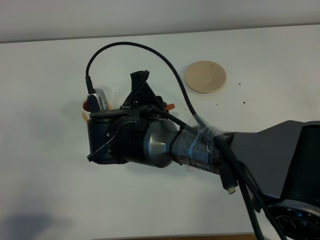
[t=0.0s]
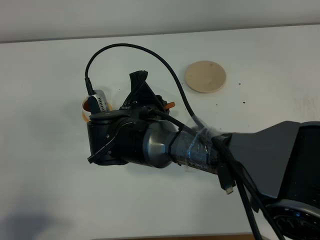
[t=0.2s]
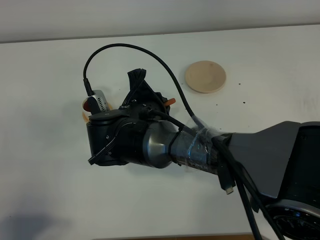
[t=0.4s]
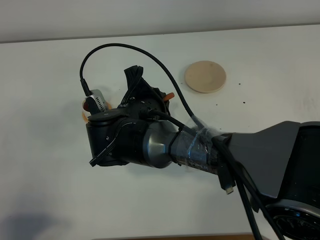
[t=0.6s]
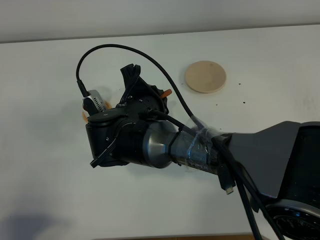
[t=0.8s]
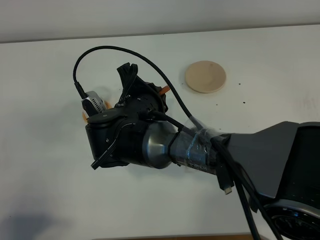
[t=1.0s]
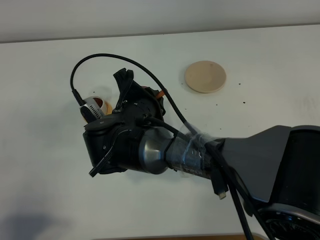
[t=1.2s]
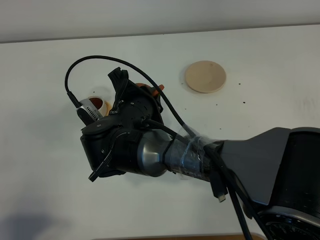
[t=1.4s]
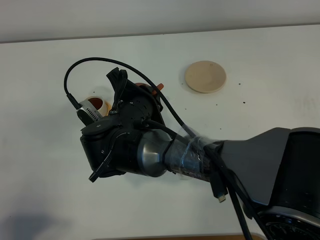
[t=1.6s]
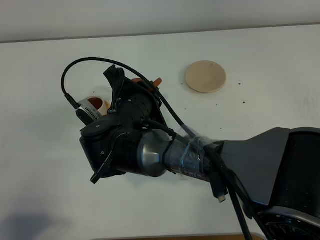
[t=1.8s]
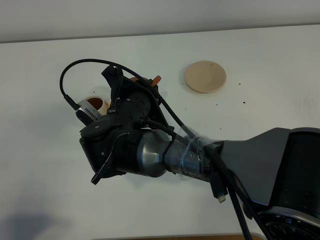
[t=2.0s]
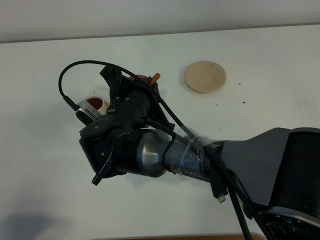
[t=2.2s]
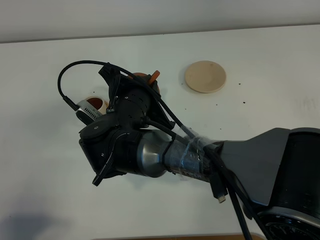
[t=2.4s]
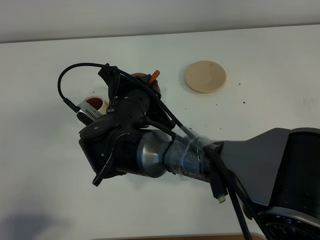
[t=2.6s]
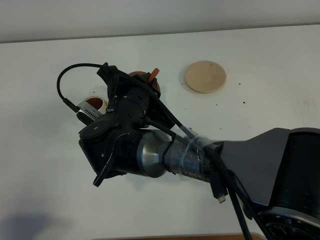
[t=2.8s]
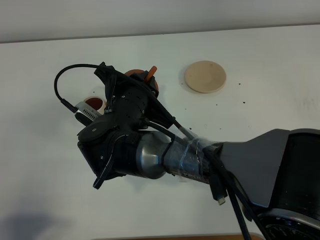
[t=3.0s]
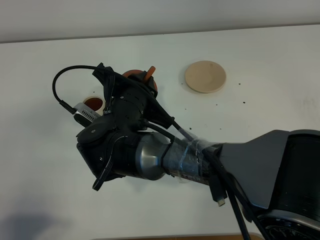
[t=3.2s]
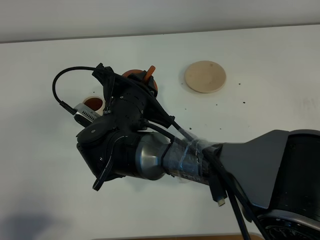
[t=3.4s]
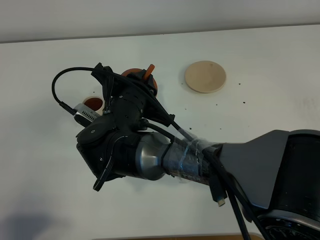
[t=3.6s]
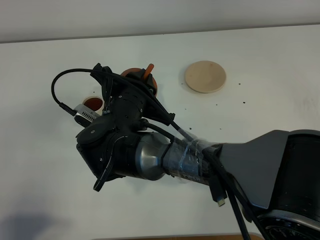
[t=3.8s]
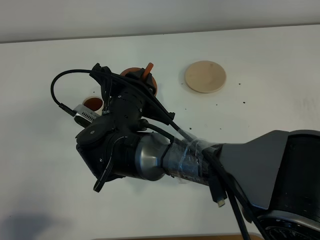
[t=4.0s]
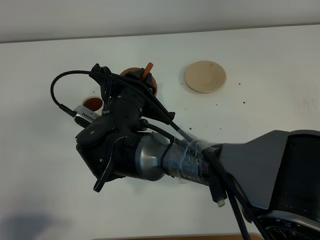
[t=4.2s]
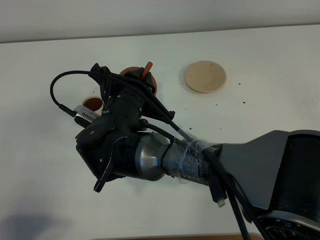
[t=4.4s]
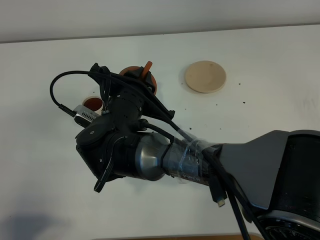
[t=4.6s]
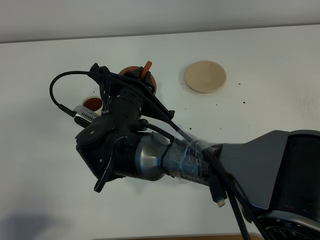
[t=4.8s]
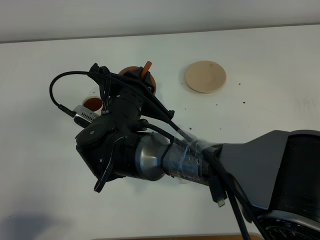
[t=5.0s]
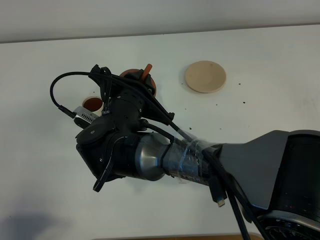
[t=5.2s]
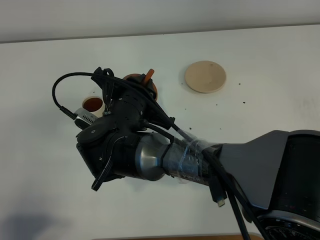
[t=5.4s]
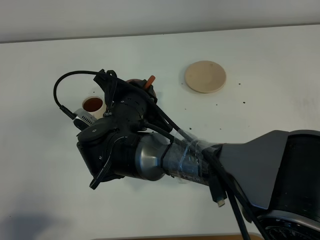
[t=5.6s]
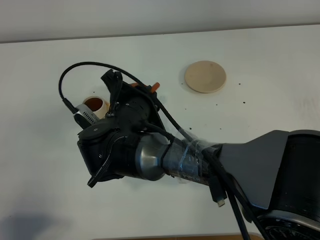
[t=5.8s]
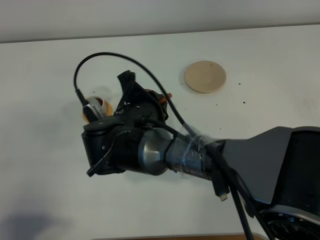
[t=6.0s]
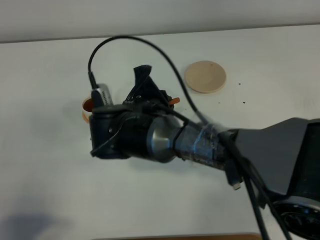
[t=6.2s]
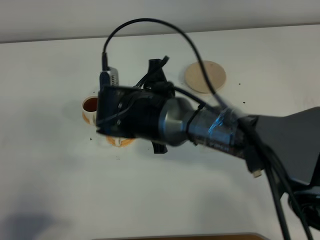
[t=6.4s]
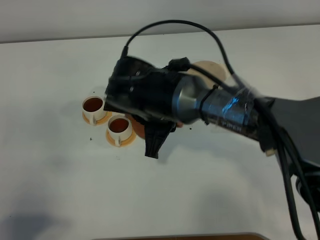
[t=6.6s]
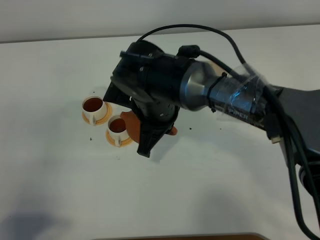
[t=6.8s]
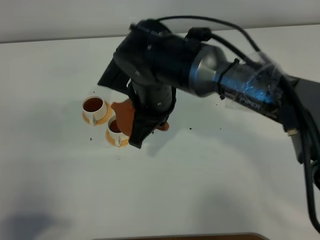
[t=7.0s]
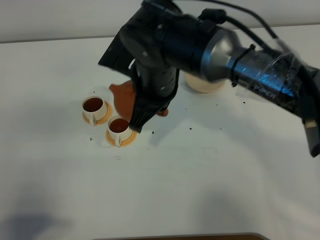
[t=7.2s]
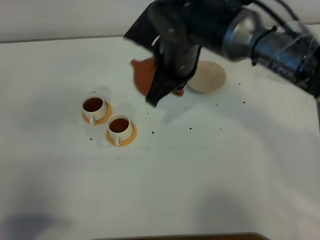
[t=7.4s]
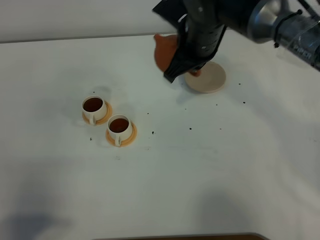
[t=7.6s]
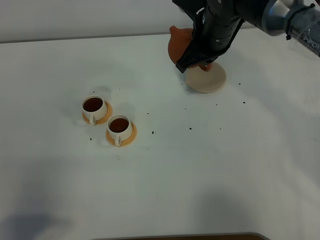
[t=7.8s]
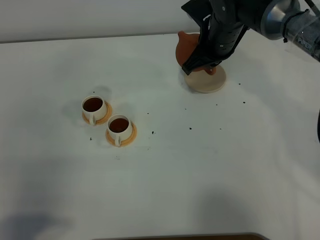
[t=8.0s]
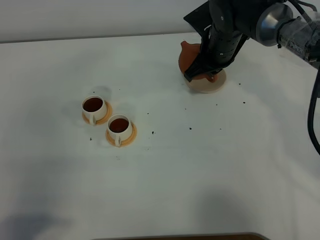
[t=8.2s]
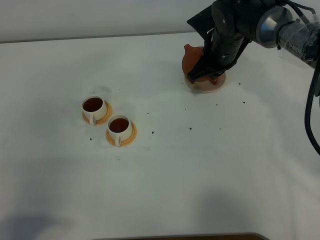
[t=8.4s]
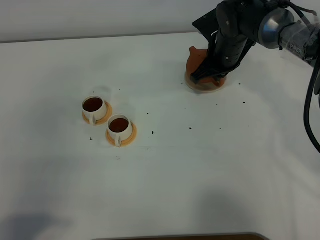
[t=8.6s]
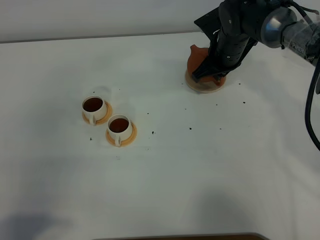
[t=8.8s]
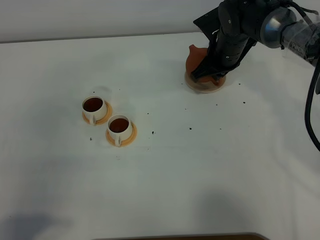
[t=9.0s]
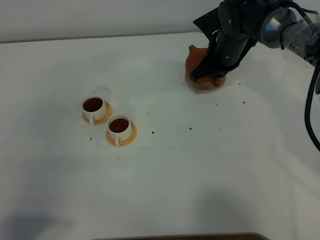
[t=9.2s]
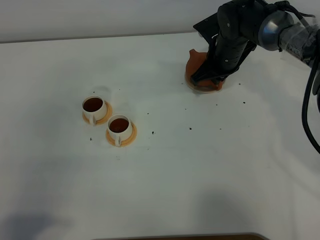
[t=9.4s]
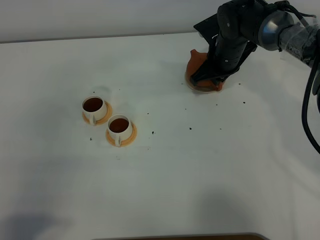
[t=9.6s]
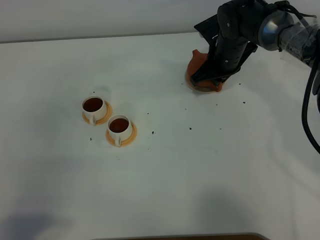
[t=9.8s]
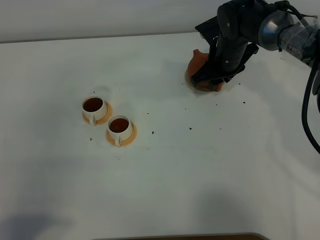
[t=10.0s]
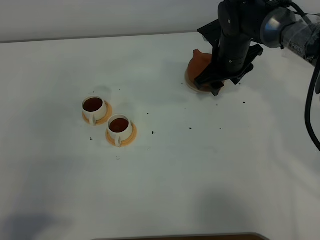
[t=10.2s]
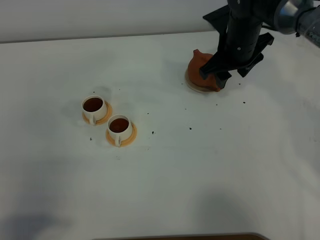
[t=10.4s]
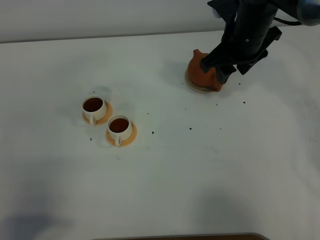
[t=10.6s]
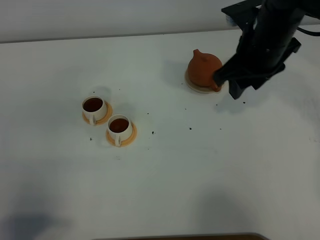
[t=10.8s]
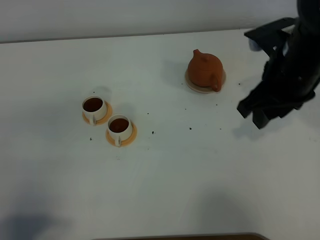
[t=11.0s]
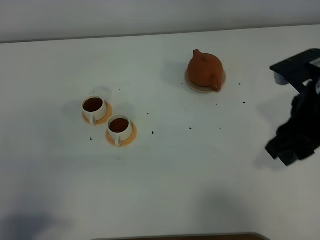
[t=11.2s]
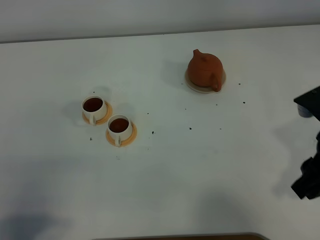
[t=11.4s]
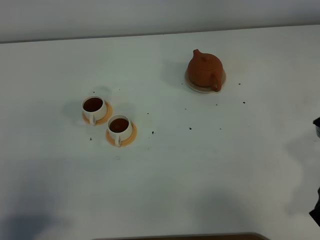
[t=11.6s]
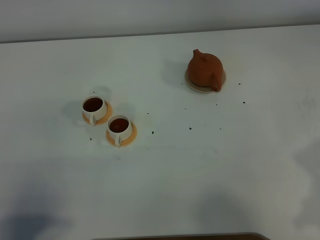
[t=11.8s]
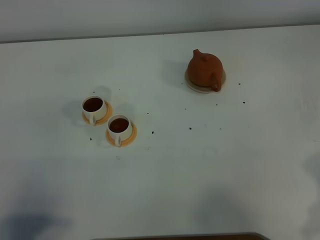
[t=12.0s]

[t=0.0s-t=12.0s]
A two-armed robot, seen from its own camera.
Task of the whole recording: grasp the brown teapot and pour the tea into the two white teacups one by one, put the brown teapot back in its original place.
Step, t=0.0s to t=7.0s: Pour tea into the teacup with the right gripper.
t=1.6s to t=4.4s: The grippers stay close to where they were, moving slightly.
t=6.0s to t=7.6s: The right gripper moves forward, to the right and upward, some 20 cm.
t=7.6s to t=9.0s: The right gripper heads downward and forward, covering roughly 10 cm.
t=9.0s to t=10.4s: The right gripper goes roughly 5 cm upward, and opens.
t=10.4s to t=12.0s: The right gripper goes approximately 35 cm backward and to the right.

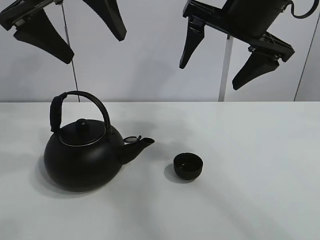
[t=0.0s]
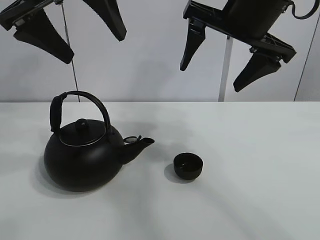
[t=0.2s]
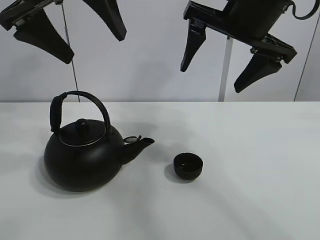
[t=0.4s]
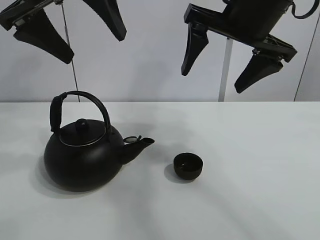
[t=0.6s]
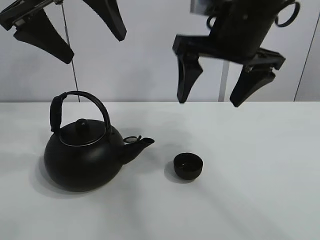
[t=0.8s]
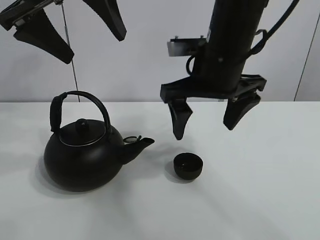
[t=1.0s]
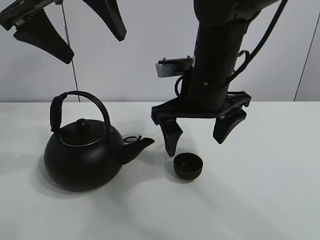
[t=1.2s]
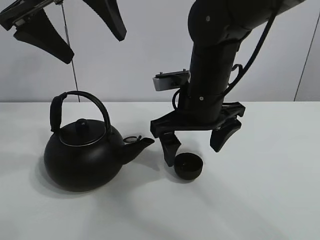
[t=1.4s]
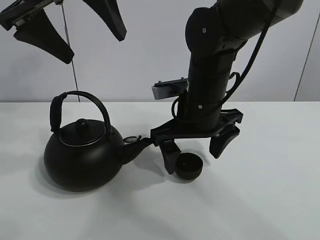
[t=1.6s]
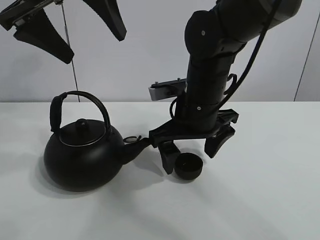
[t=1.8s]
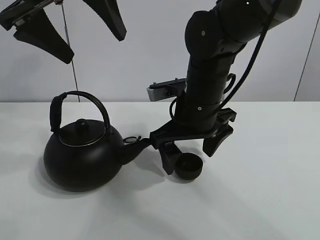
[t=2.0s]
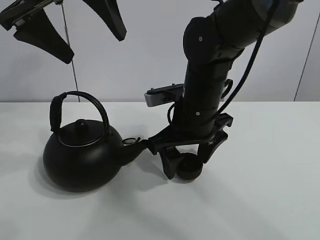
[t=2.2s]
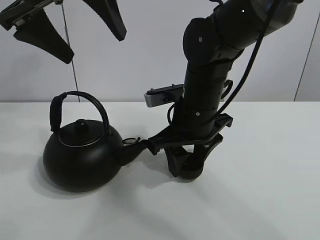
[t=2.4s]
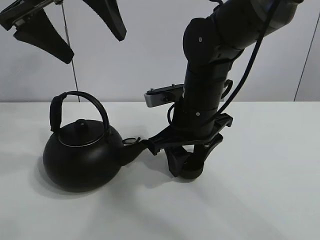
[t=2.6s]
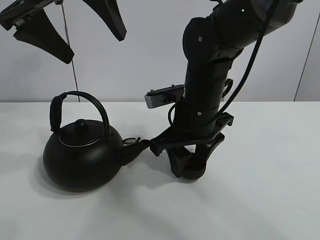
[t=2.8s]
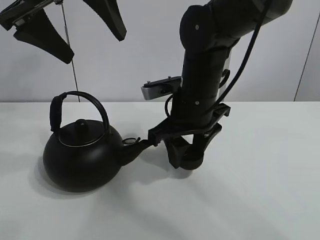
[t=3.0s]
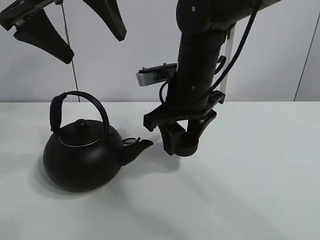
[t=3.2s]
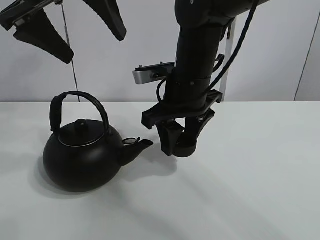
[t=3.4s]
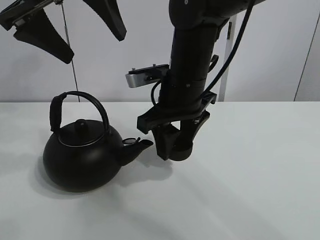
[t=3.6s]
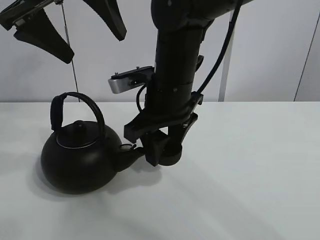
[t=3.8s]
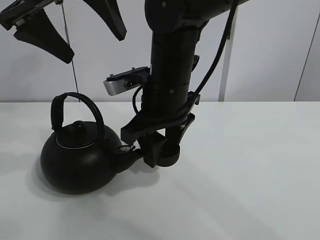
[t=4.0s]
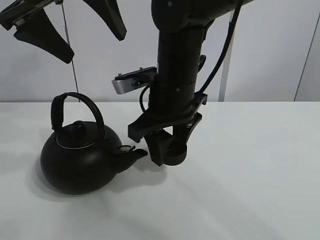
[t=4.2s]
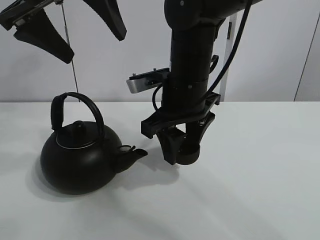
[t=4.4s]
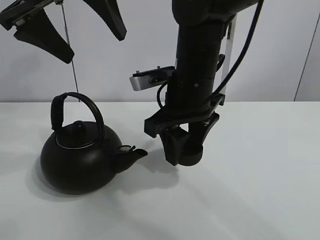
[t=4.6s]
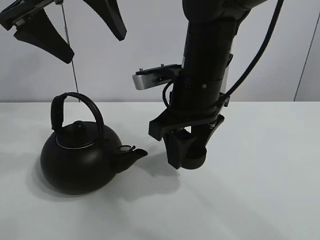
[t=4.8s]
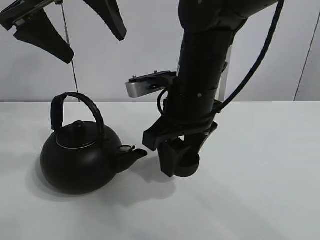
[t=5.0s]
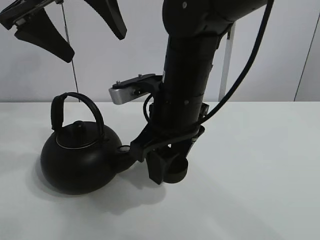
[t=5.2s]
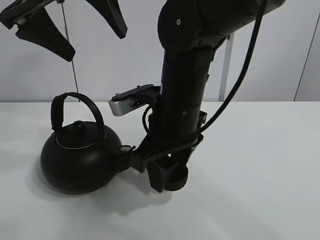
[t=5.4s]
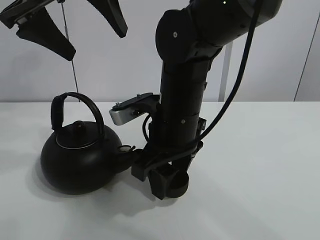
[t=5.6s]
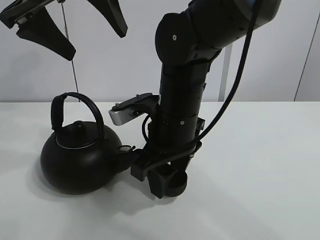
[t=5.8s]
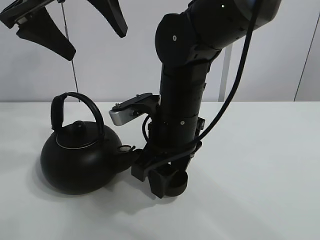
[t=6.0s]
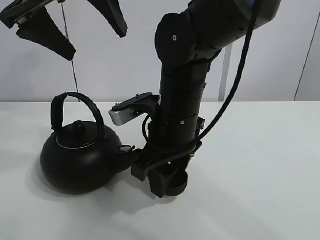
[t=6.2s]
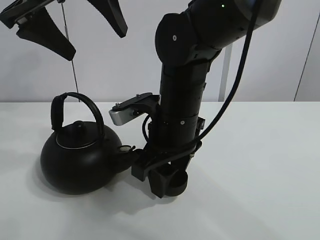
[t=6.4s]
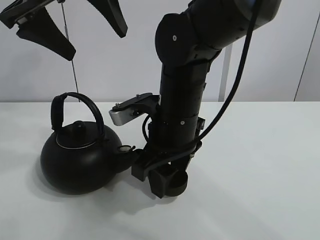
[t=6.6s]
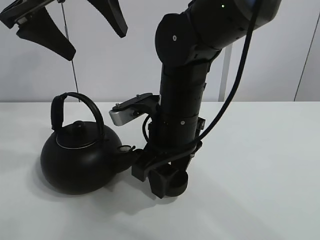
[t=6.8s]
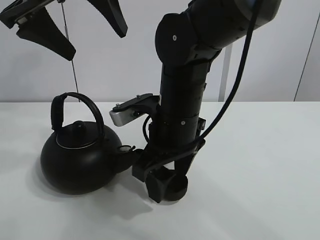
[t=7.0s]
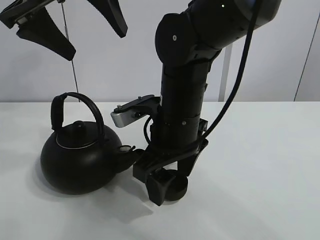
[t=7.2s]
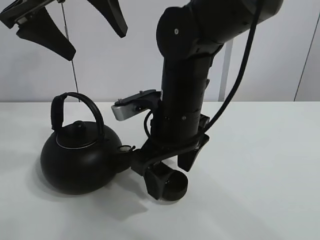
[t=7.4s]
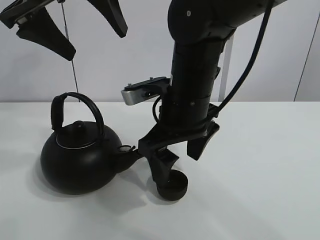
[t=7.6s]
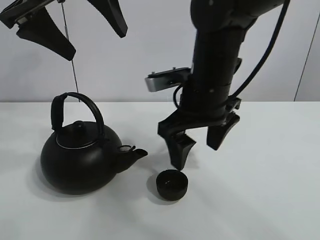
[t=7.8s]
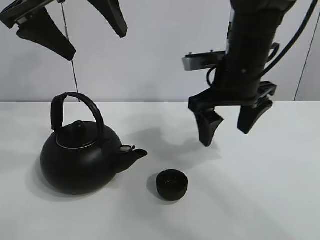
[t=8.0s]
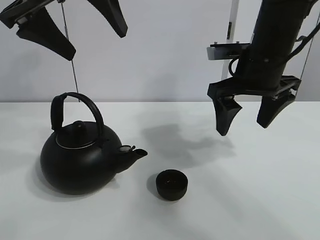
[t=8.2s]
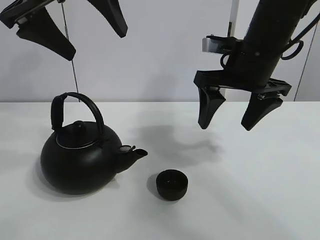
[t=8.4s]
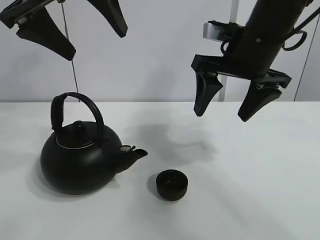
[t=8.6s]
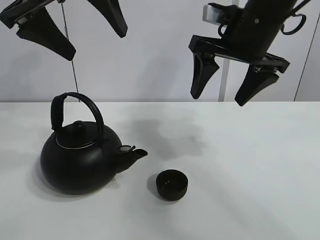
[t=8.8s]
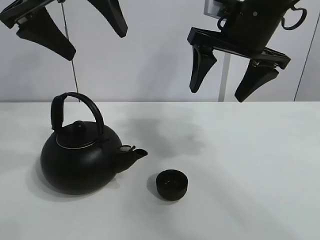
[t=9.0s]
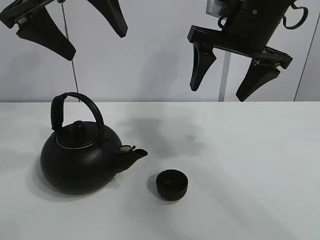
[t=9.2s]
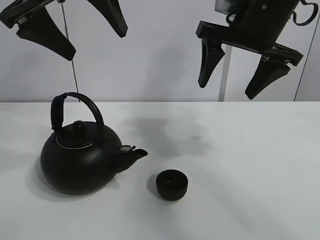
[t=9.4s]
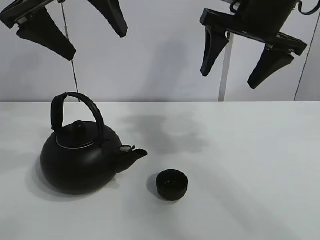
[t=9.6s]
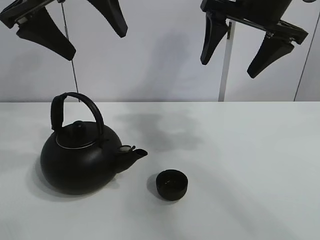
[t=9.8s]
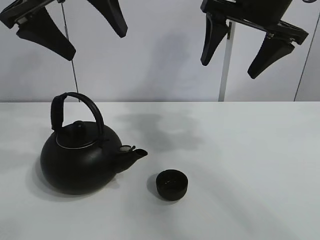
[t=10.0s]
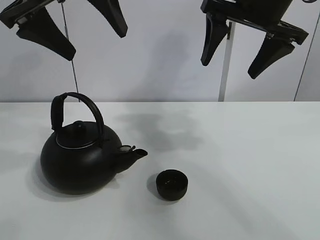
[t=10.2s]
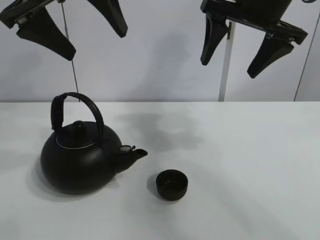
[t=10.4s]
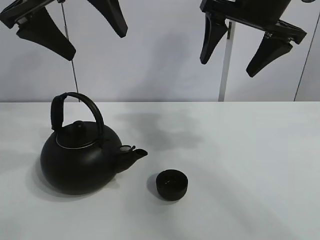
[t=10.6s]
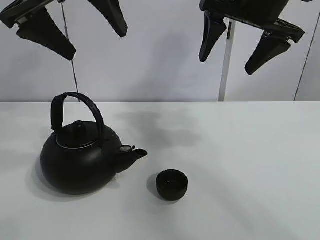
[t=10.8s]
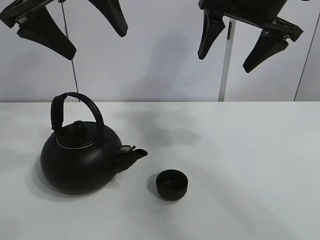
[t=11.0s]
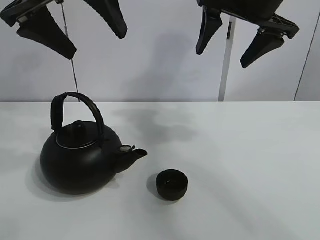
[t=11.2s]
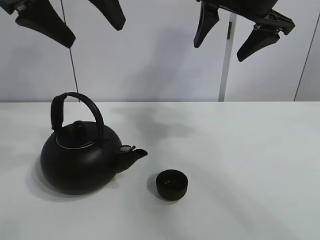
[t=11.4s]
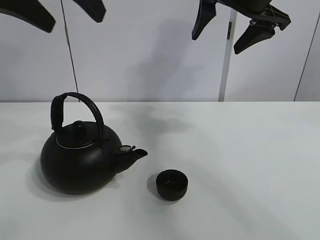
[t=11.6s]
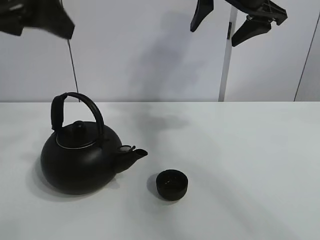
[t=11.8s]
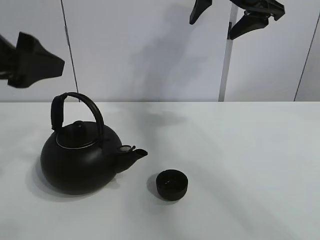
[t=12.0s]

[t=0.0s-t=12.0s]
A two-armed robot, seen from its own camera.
Task of the whole recording: pour tea into the teacup.
Step, t=0.0s to t=2.8s: Pick up the teacup with the right gripper.
Step, t=3.0s to t=7.2s: Place the teacup in the center of view with the right gripper.
t=1.6s to t=3.0s: The right gripper closes its fingers.
t=3.0s to t=4.4s: There are only small adjustments of the grippers.
t=4.4s to t=6.0s: The right gripper shifts by about 5 cm.
t=6.0s to t=7.6s: The right gripper opens up.
t=7.6s to t=9.0s: The right gripper moves to the right, upward and forward, approximately 15 cm.
t=9.0s to t=10.4s: The grippers move only a little.
t=10.4s to t=12.0s: The left gripper goes some 15 cm backward, downward and to the left.
